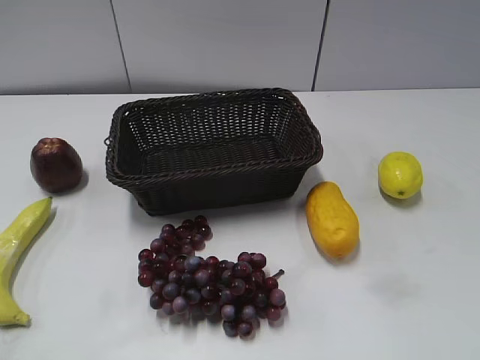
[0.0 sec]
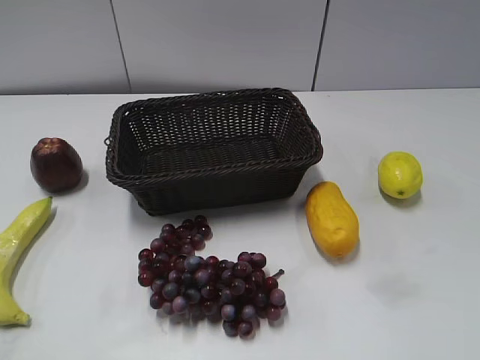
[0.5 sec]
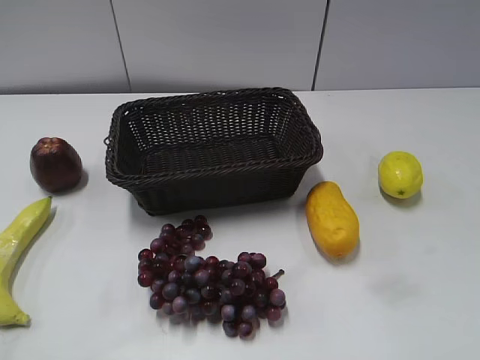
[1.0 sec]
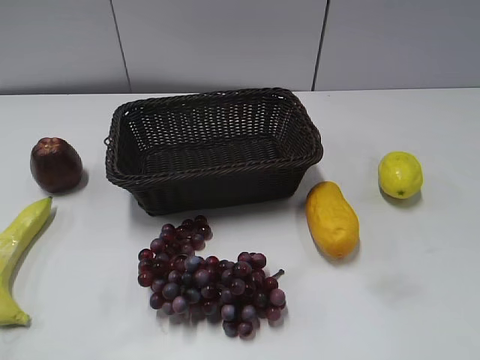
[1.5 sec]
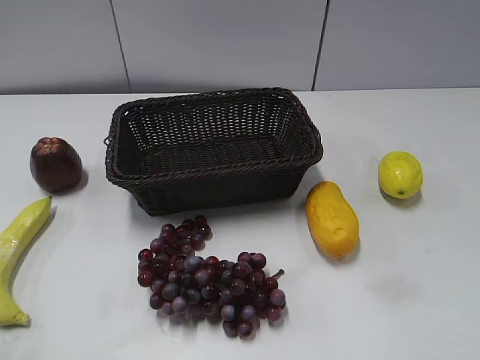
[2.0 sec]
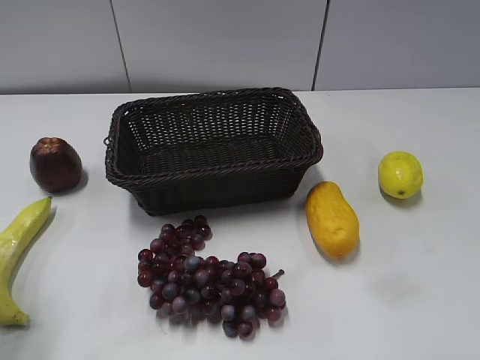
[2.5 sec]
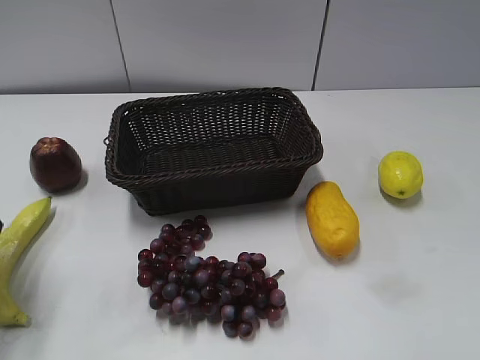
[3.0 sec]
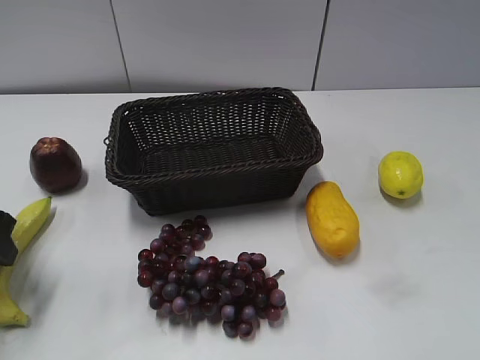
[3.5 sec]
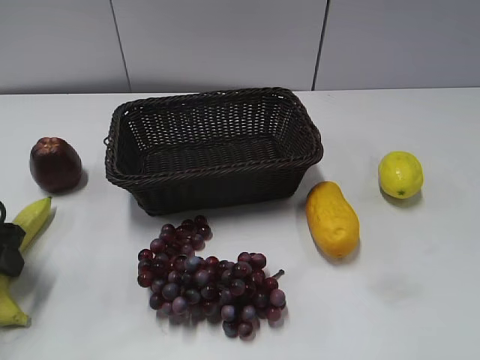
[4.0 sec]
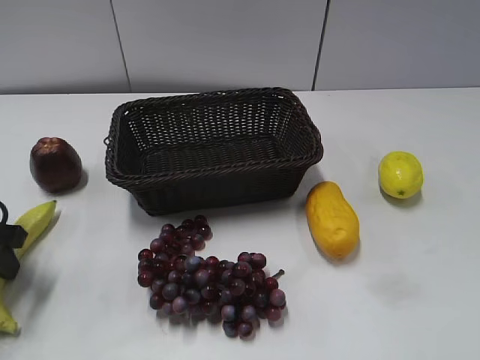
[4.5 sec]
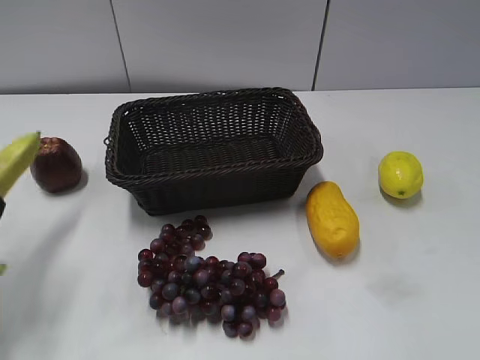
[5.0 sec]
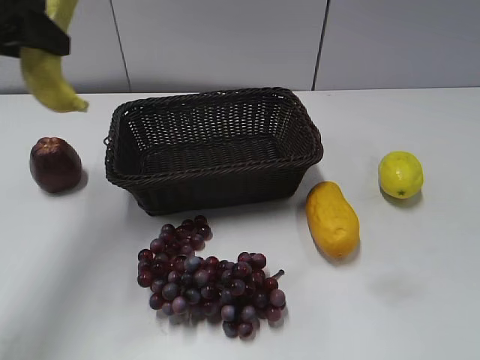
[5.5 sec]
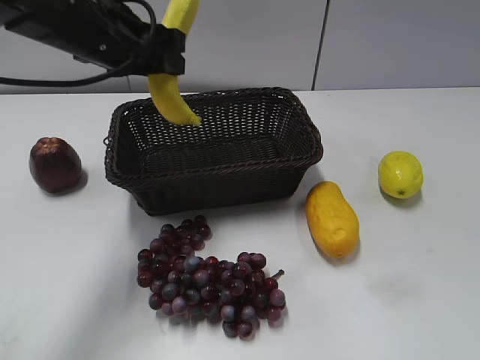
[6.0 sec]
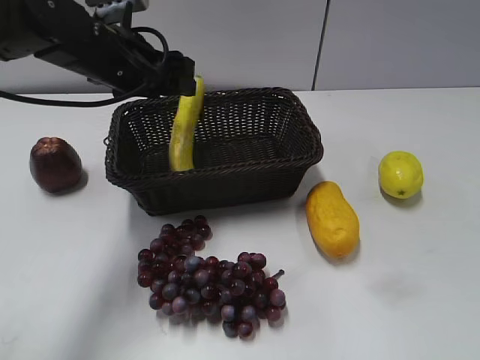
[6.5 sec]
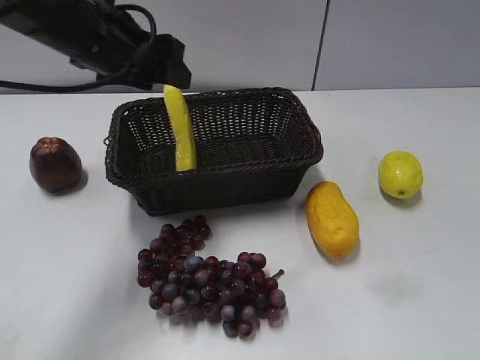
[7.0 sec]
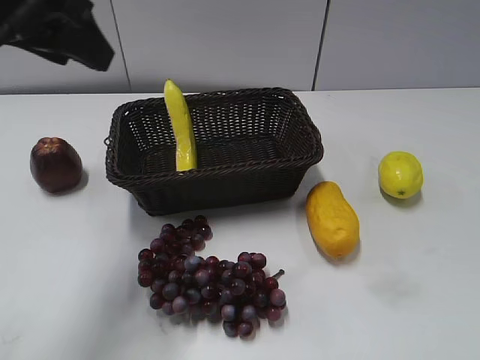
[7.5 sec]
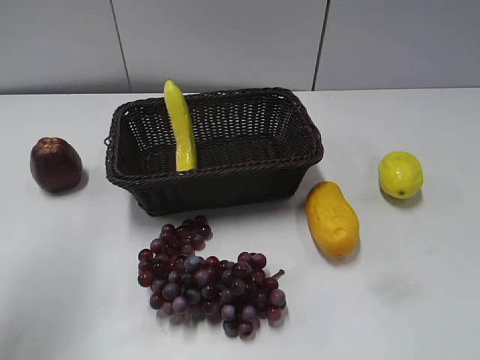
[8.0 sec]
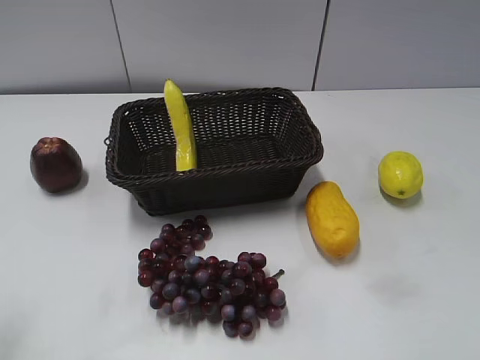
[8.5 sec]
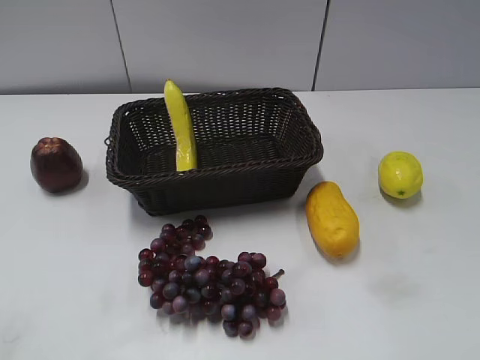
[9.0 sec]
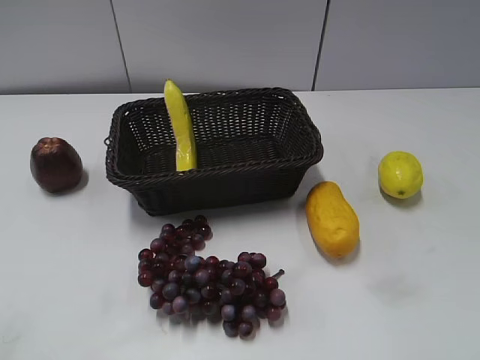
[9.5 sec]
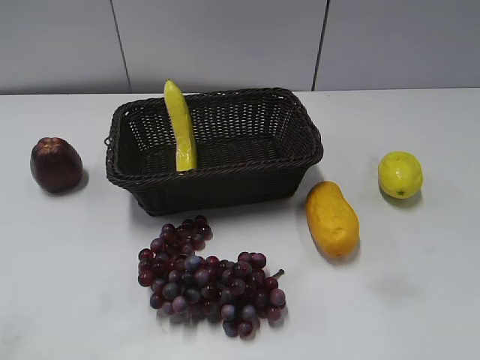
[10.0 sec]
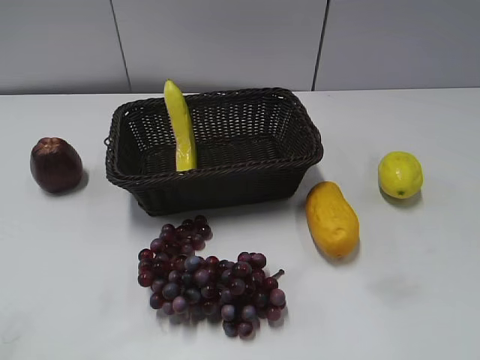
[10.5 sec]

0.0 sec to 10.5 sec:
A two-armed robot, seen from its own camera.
Step, 3.0 sec to 4.0 sec: Grasp the banana with left gripper.
Step, 4.5 sec to 6.5 sec: Place the banana in the basket with left gripper.
2.0 sec to 4.0 sec: The left gripper heads forward and downward, covering some 25 cm.
4.0 sec to 6.5 sec: The left gripper is displaced to the right, forward and upward by approximately 25 cm, and closes and opens again.
6.5 sec to 8.5 sec: The left gripper moves backward and to the left, about 30 cm.

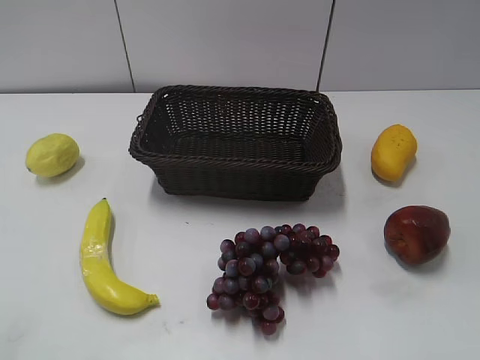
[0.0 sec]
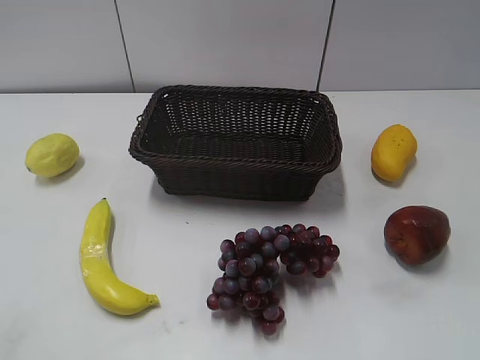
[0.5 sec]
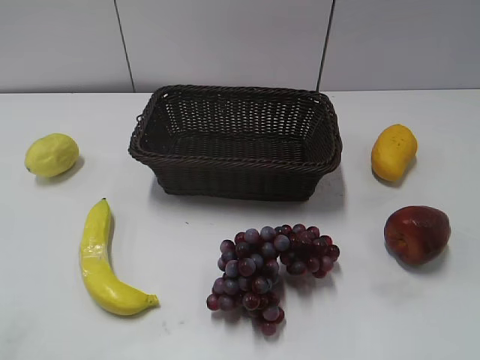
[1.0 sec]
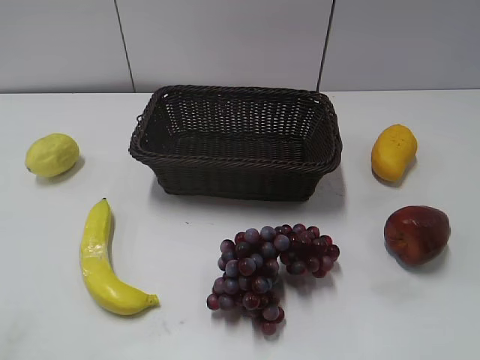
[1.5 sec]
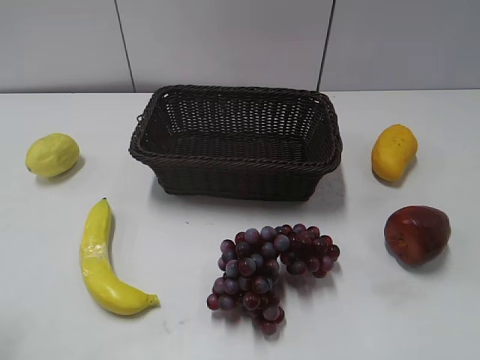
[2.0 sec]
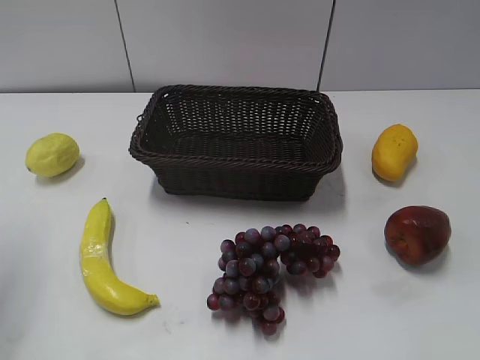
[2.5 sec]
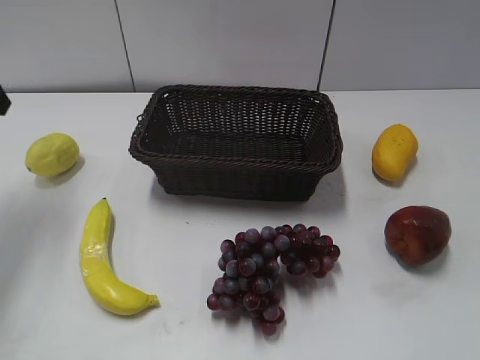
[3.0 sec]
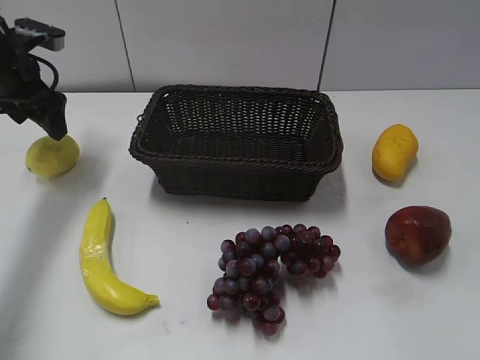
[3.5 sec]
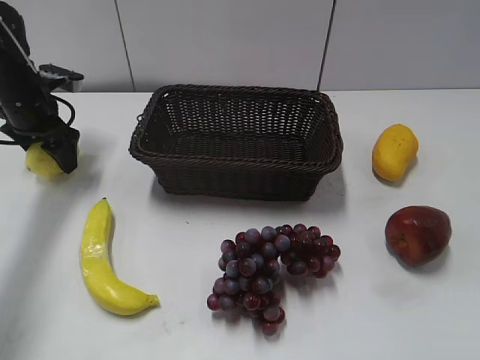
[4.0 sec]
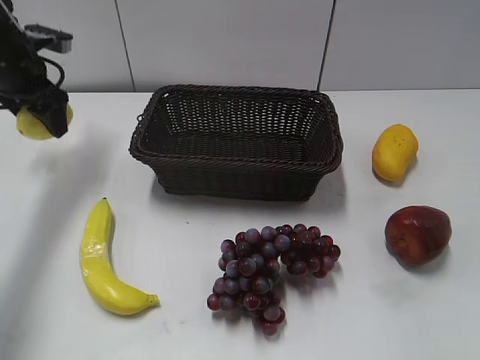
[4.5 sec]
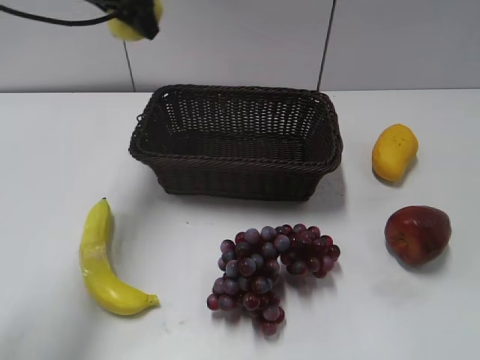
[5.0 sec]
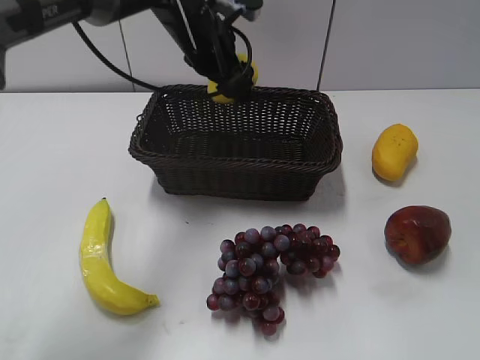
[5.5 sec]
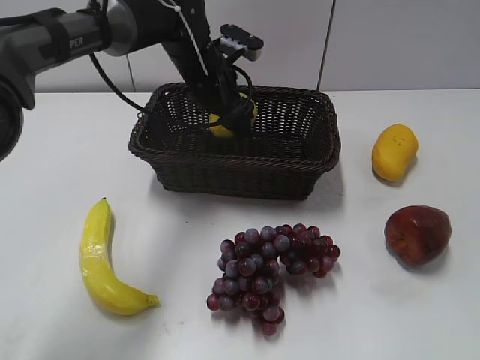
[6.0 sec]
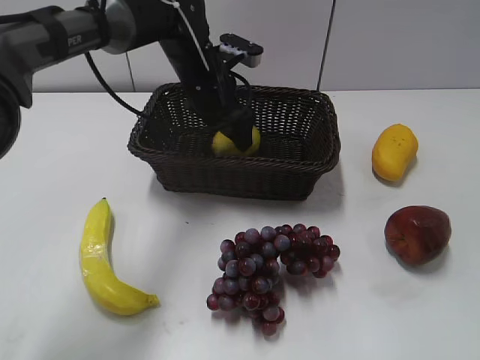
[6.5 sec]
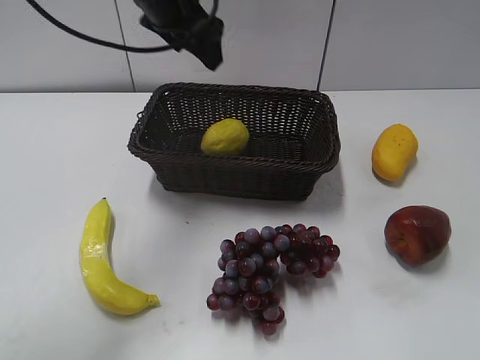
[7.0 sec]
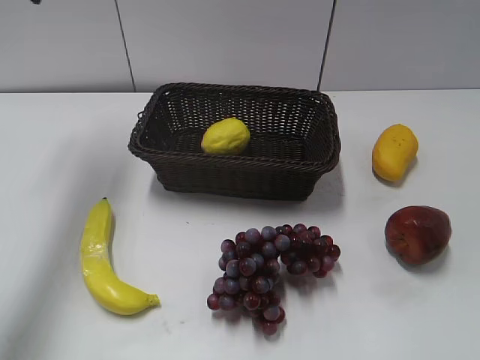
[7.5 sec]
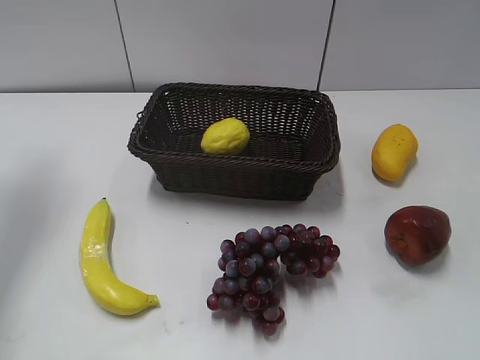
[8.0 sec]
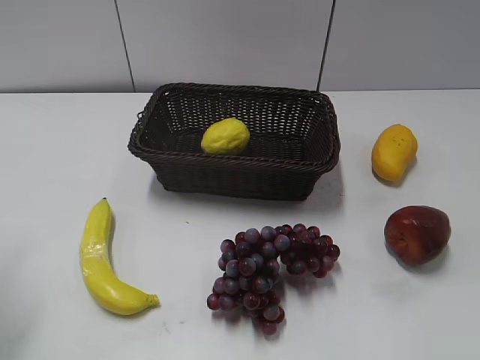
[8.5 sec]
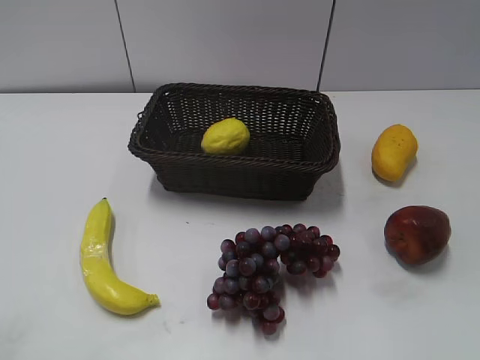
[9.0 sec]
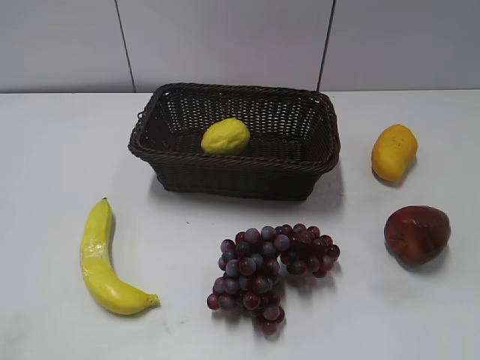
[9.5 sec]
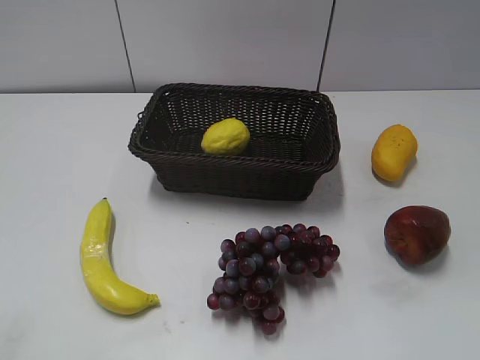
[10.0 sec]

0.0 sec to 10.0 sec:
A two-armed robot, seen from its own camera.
Step, 3.0 sec to 4.0 sec: Grasp the lemon with left gripper.
Step, 4.5 sec to 6.0 sec: Place the lemon in the basket with left gripper.
2.0 sec to 4.0 sec: The left gripper is displaced forward and downward by approximately 40 cm, and opens its fingers.
4.0 sec to 6.0 sec: The left gripper is displaced to the right by roughly 25 cm, and closes.
6.0 sec to 8.0 sec: The left gripper goes some 35 cm to the left and upward, and opens, then closes once more.
8.0 sec to 10.0 sec: The left gripper moves backward, about 40 cm.
